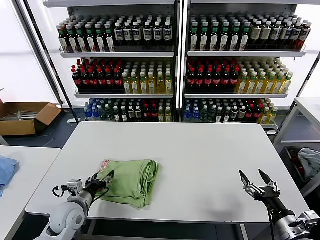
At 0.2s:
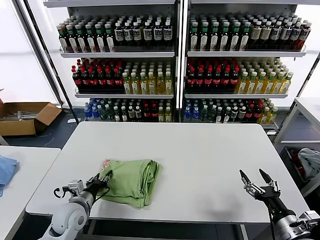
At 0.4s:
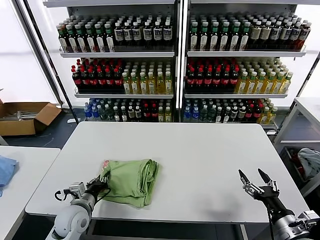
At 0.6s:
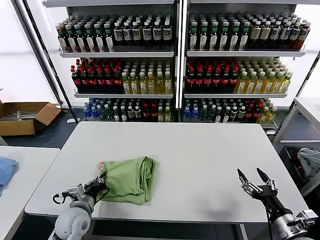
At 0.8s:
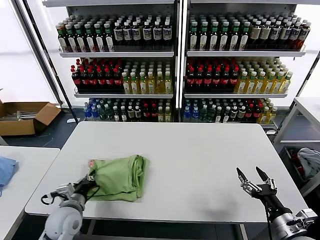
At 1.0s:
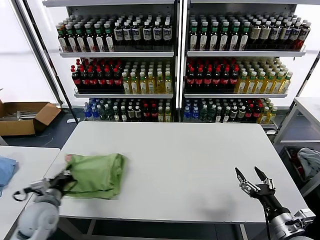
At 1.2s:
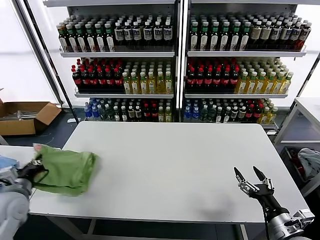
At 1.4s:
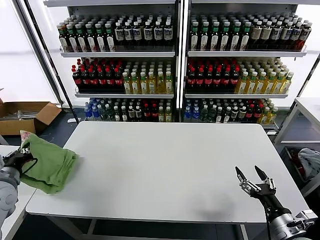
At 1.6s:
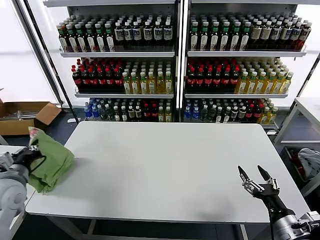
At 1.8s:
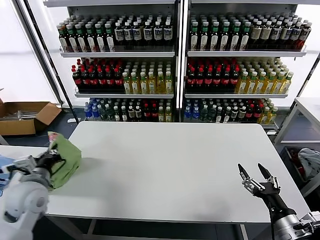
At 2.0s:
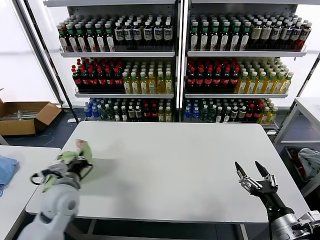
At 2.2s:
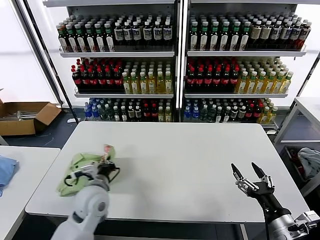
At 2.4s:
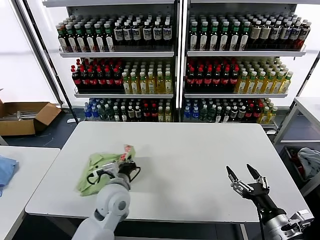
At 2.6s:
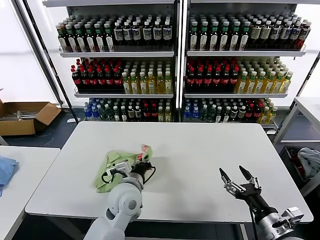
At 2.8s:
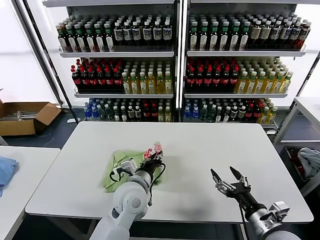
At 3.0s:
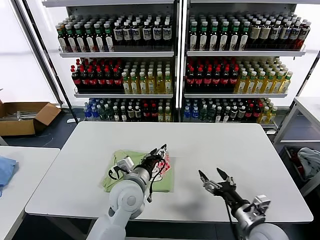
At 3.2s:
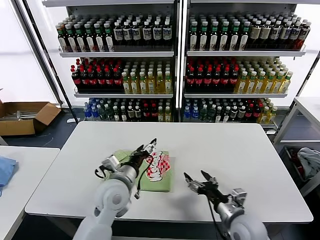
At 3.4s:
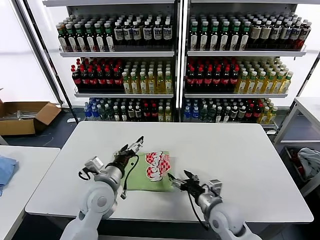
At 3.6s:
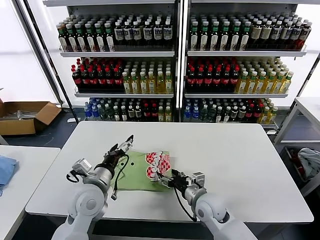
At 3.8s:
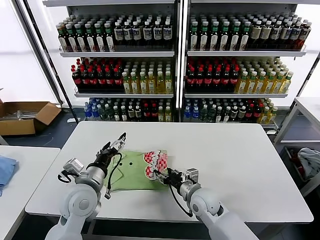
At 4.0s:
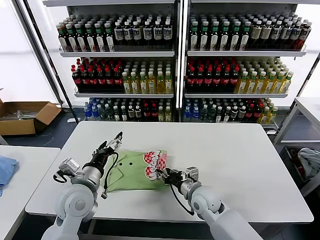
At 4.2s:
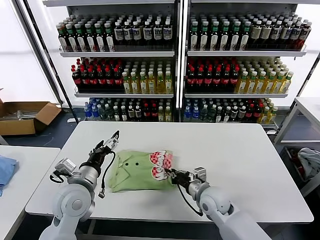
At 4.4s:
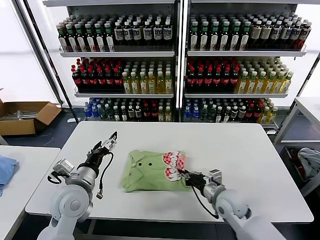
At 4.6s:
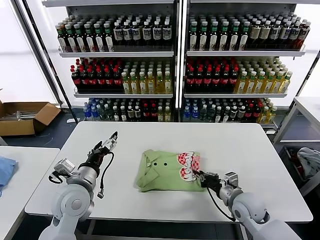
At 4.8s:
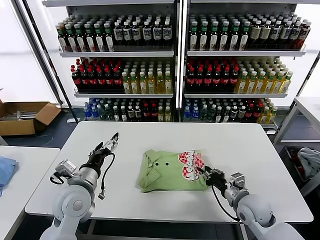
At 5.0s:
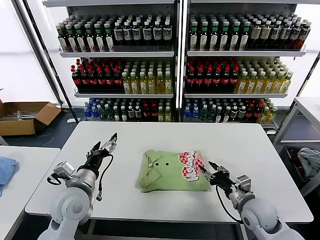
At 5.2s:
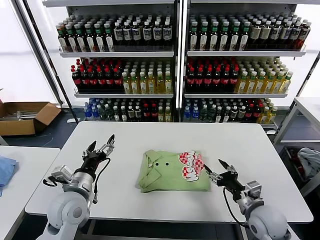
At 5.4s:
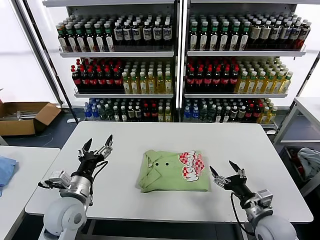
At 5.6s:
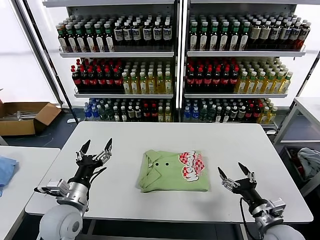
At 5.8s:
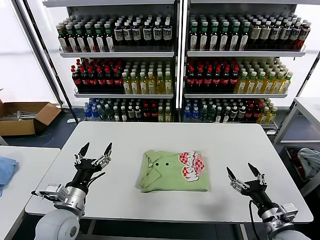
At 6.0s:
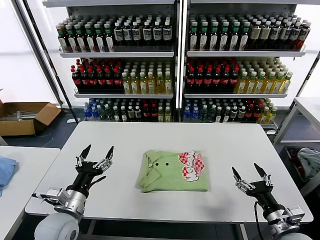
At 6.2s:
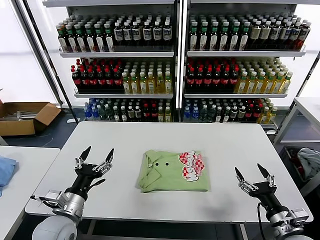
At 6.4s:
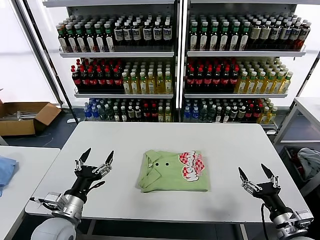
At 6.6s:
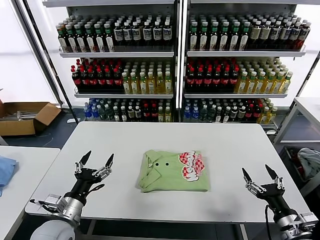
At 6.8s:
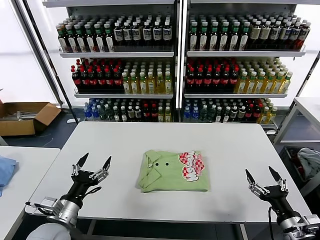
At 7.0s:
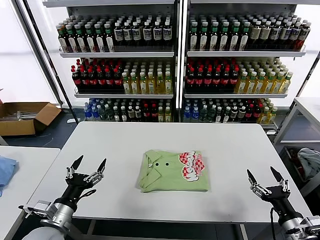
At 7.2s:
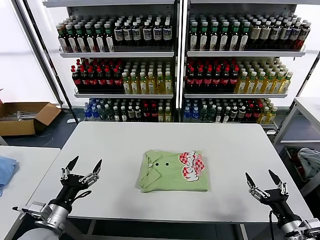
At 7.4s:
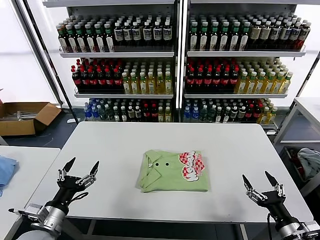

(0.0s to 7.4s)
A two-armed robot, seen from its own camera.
Task of the whole recording: fold and organize the clothes.
Step, 0.0s - 2.8s: Flip the folded clothes over with left gripper.
Step, 3.0s - 5.0s: Drag the clothes to the center of the table.
0.0s - 1.4s: The left gripper is displaced to the left and upward by some 20 cm, and closes its fingers.
1.4s - 3.0s: The left gripper shifts roughly 35 cm to the right, and opens up. The right gripper heads to the left, covering some 10 cm.
3.0s - 4.4s: The left gripper is displaced to the left by roughly 15 cm, and opens its fingers, while the right gripper travels forward and to the left by approximately 15 cm, and closes up.
4.4s - 6.0s: The left gripper is displaced backward by roughly 5 cm, while the right gripper heads backward and to the right, covering approximately 20 cm, and opens.
6.0s - 7.4s: The left gripper goes about 5 cm to the left.
